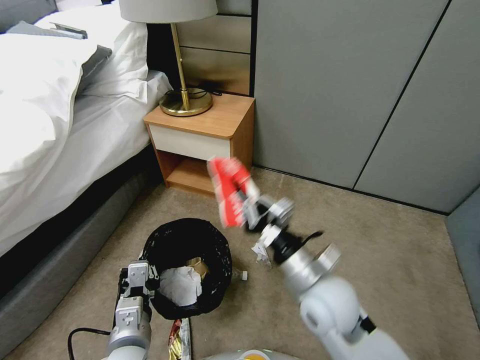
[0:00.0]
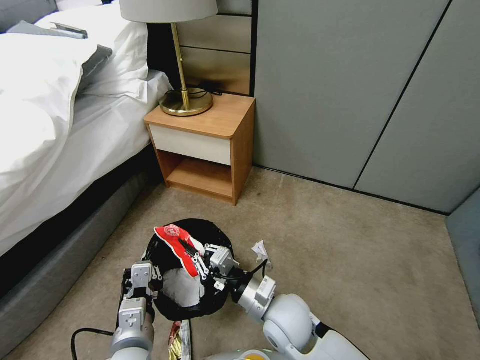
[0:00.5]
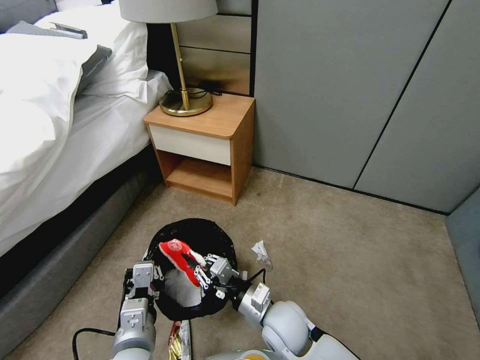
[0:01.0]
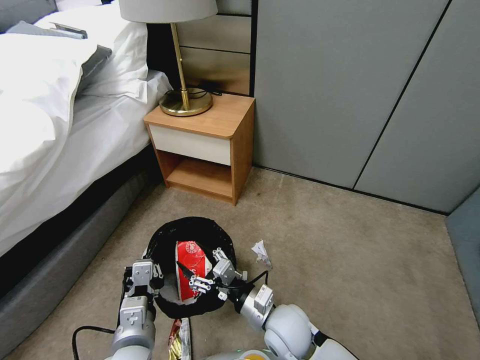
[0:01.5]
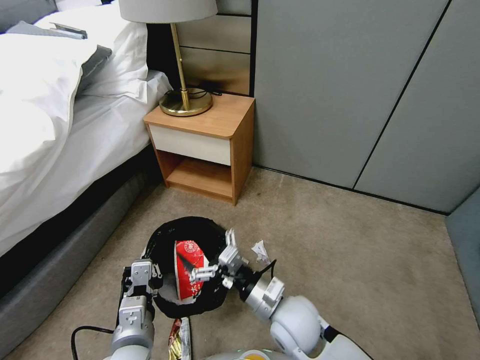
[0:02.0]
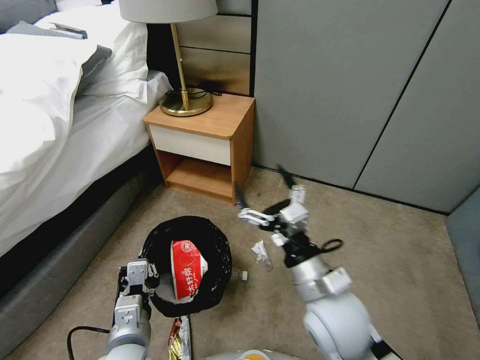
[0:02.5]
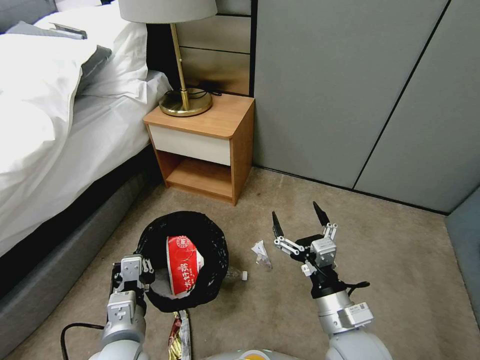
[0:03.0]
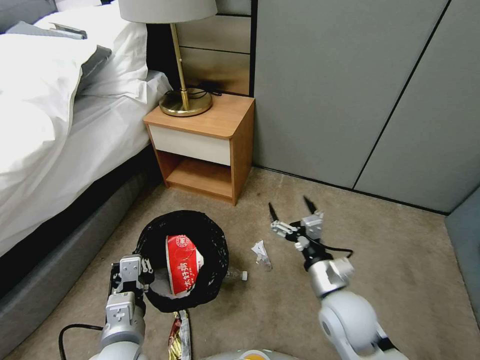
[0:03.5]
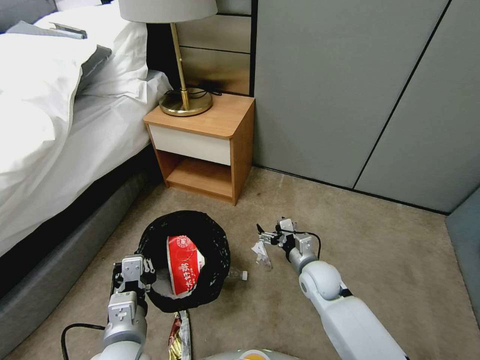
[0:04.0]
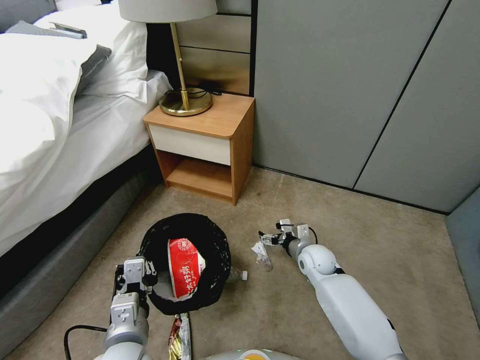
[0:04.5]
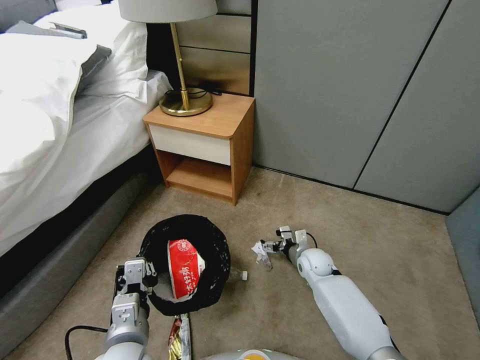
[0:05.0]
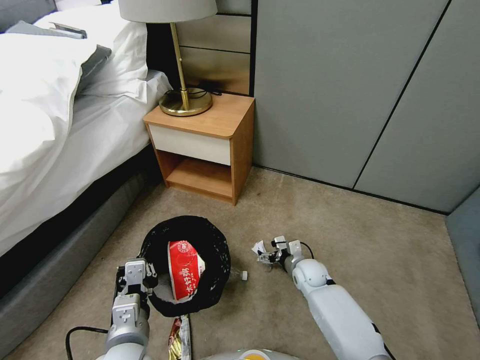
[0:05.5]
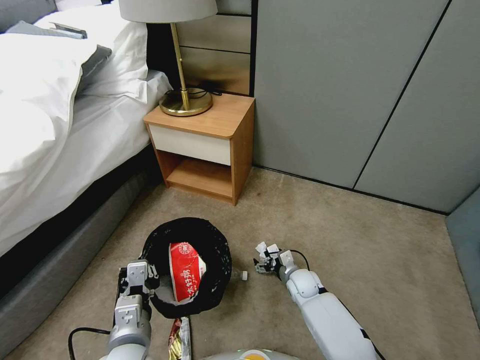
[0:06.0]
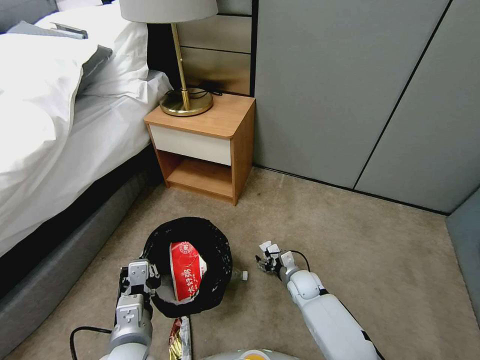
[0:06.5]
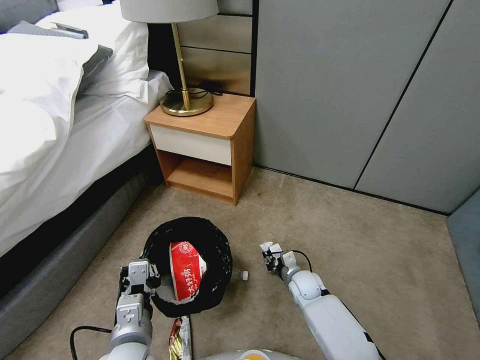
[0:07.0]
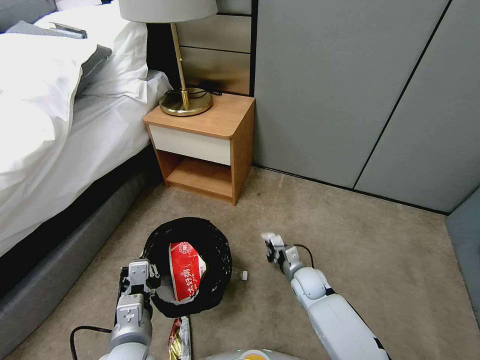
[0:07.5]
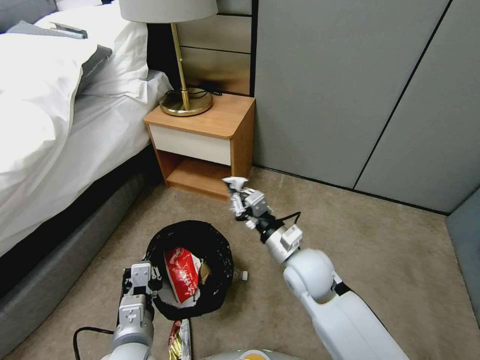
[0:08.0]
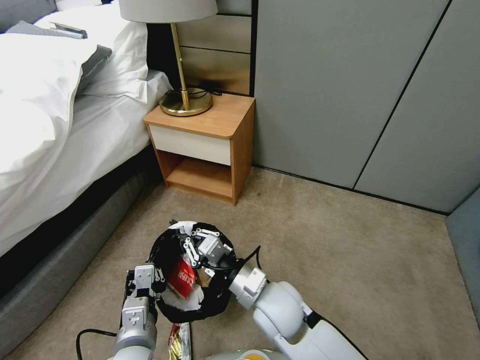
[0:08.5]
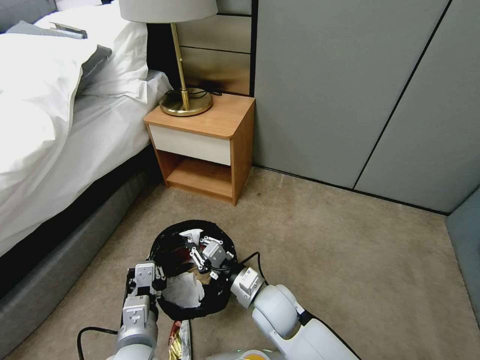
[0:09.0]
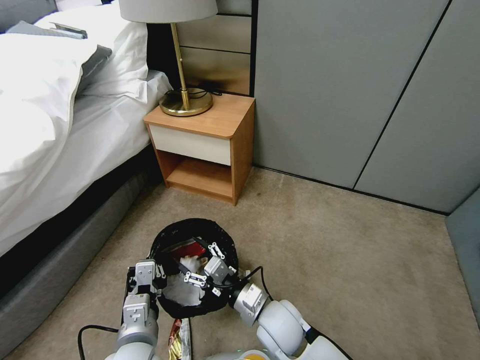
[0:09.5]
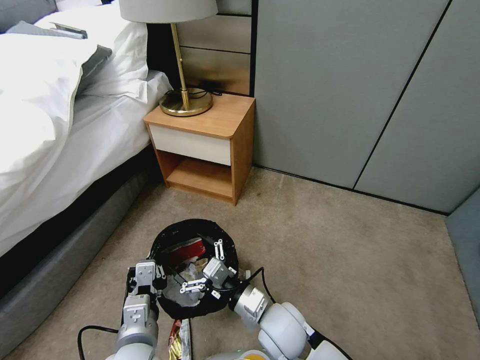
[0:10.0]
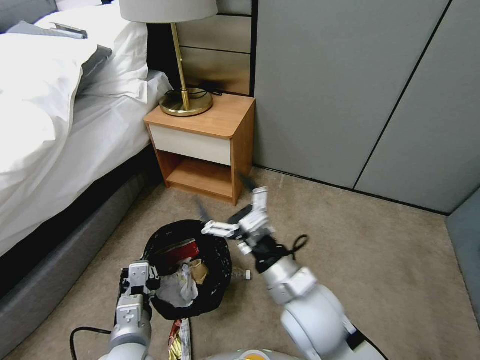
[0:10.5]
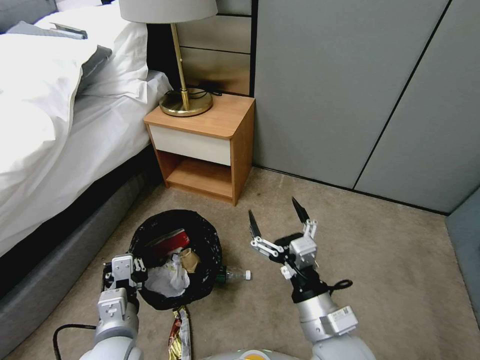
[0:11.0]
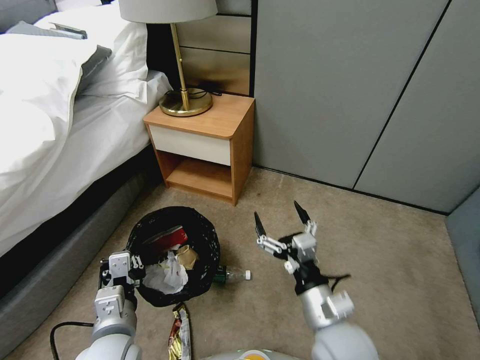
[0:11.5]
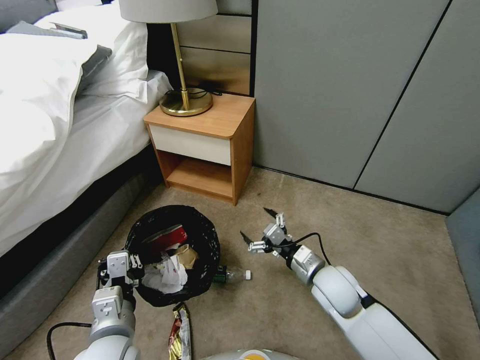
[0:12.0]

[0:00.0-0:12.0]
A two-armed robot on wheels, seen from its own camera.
Task of the whole recording: Pick up the trash bin, then pick up the garbage from the floor and place it into the trash bin.
0:00.0 to 0:02.0: The right gripper travels downward by some 10 cm, and opens up.
0:02.0 to 0:04.0: The right gripper heads forward, to the right and downward, covering about 15 cm.
0:04.0 to 0:06.0: The right gripper goes some 10 cm downward.
0:06.0 to 0:08.0: The right gripper is displaced upward by approximately 25 cm, and closes.
0:08.0 to 0:10.0: The right gripper shifts some 15 cm backward, downward and to the left, and opens.
0:10.0 to 0:12.0: The right gripper is displaced to the right and forward by about 15 cm.

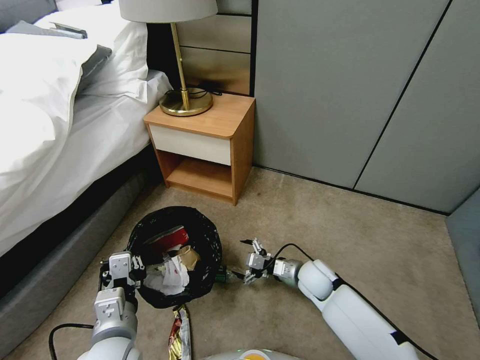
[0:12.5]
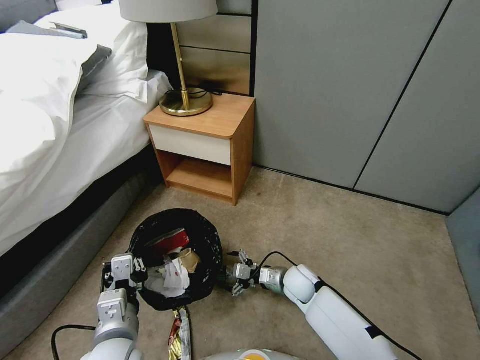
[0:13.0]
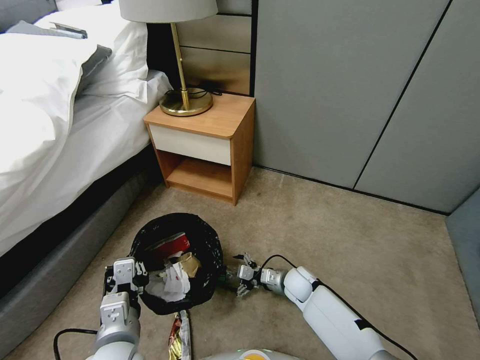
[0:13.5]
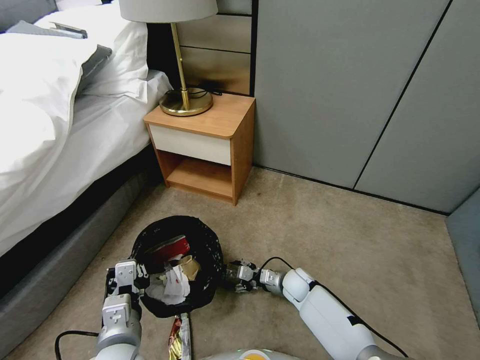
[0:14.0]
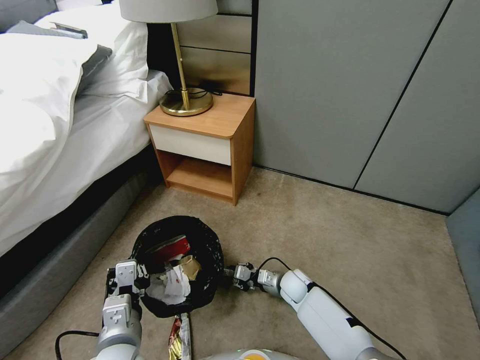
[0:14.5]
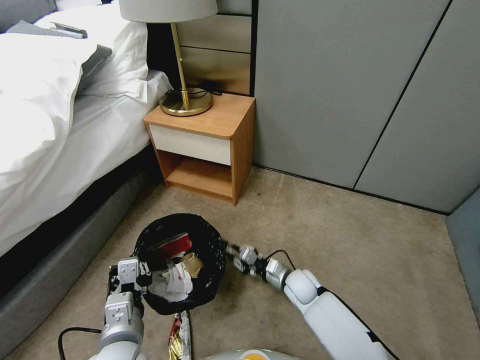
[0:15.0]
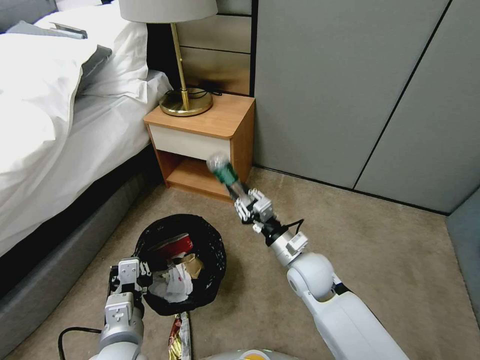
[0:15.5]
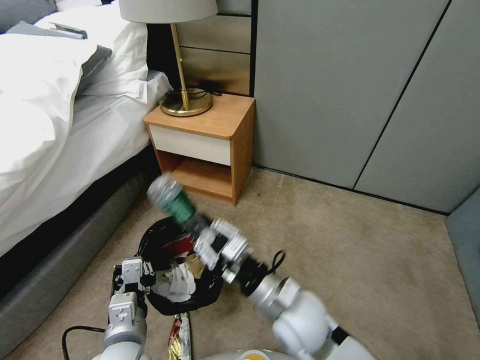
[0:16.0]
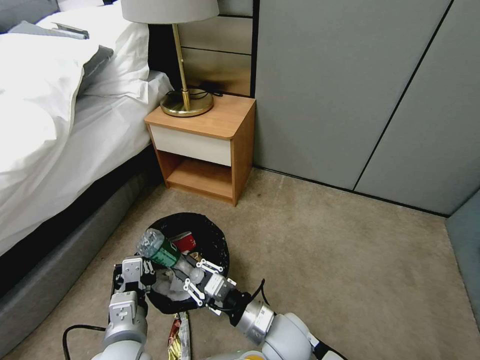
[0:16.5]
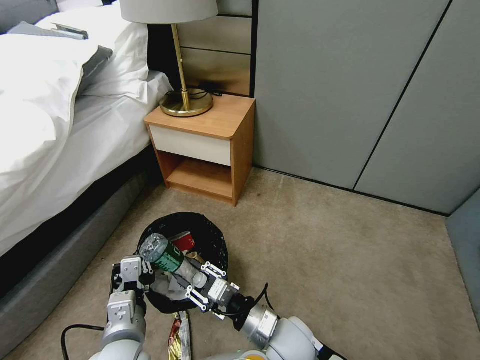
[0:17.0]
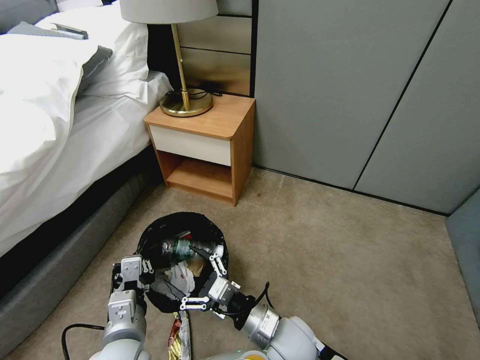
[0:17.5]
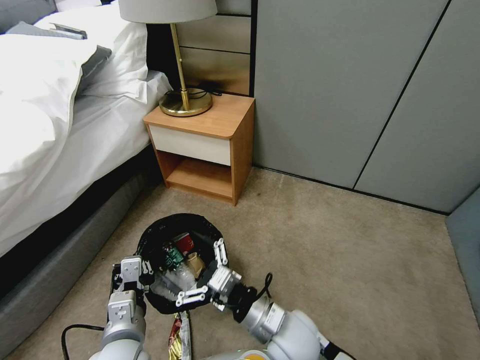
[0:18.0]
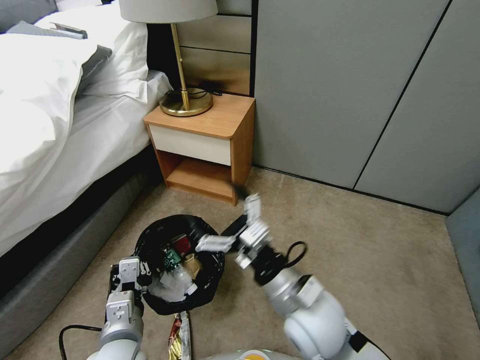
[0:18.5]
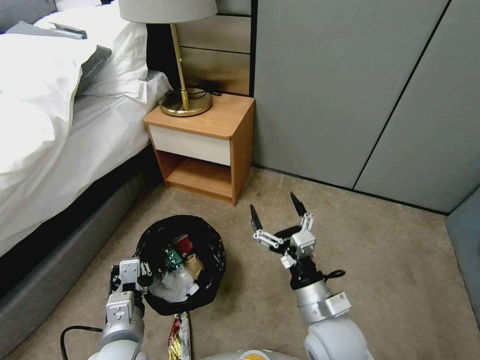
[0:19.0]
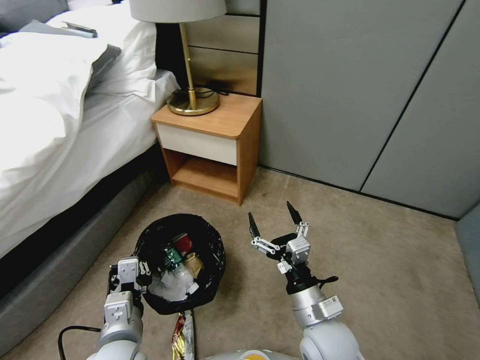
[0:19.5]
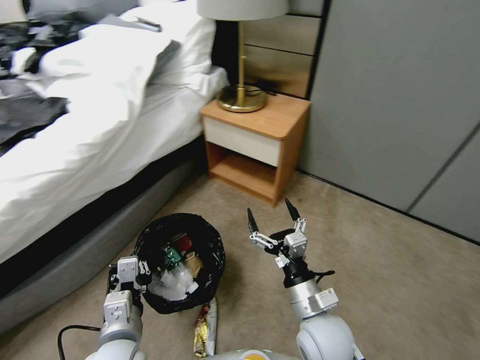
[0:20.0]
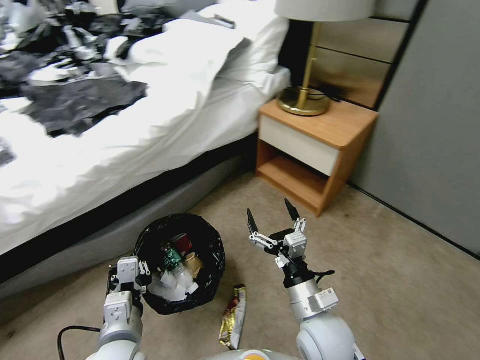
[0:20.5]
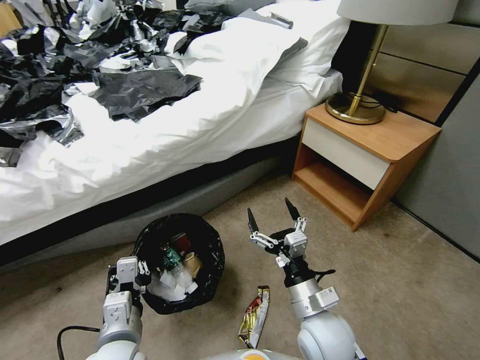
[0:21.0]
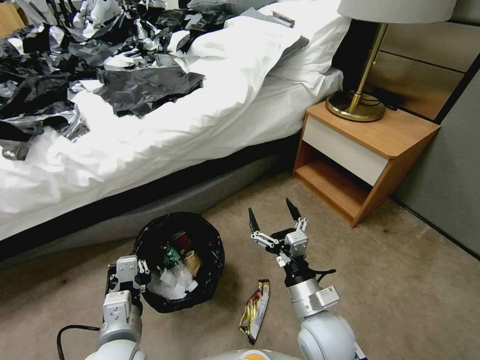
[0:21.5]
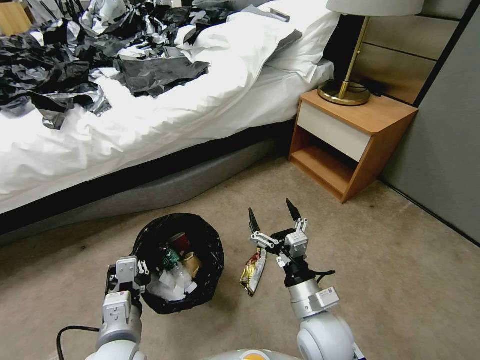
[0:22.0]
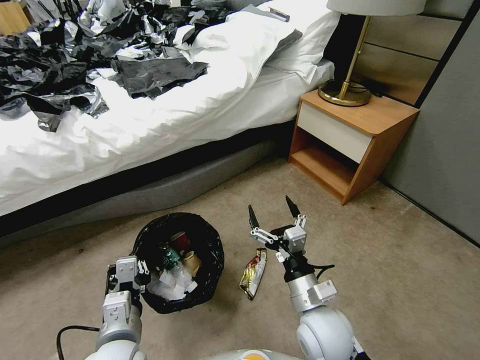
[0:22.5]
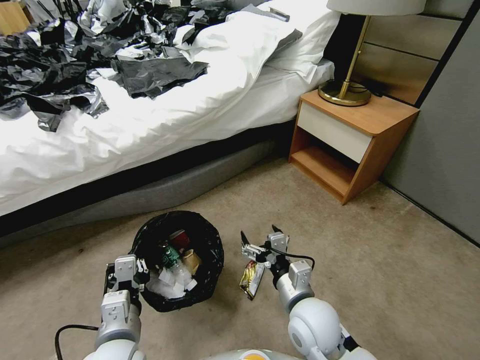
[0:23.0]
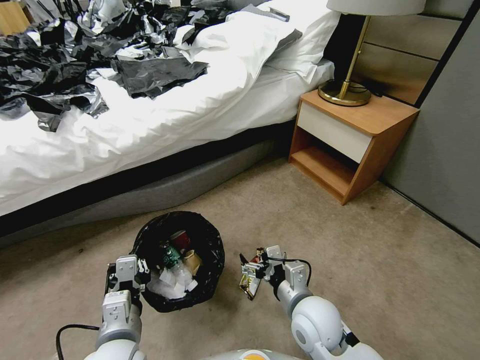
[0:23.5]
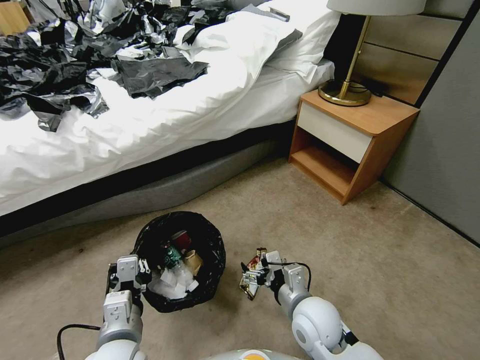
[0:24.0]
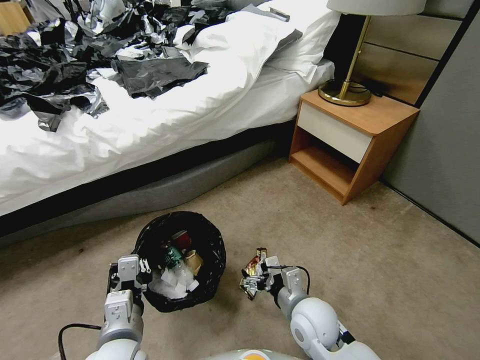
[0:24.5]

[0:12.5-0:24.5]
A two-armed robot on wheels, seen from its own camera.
Task of the whole recording: Pick up the trash bin, then pick up the garbage from the floor and place it into the trash bin.
0:12.5 to 0:14.5: The right gripper is displaced downward by some 10 cm, and closes its fingers.
0:14.5 to 0:16.5: The right gripper travels upward, backward and to the left by approximately 25 cm.
0:16.5 to 0:18.5: The right gripper shifts about 15 cm upward, and opens.
0:18.5 to 0:20.5: The right gripper shifts approximately 10 cm downward.
0:22.5 to 0:24.5: The right gripper travels downward by approximately 5 cm.

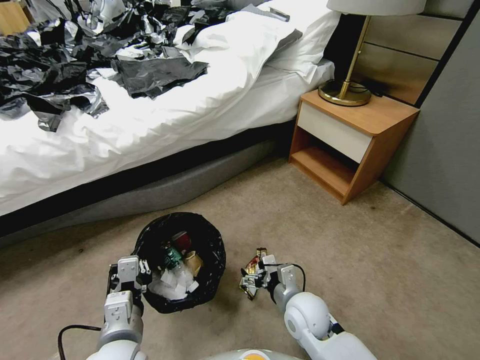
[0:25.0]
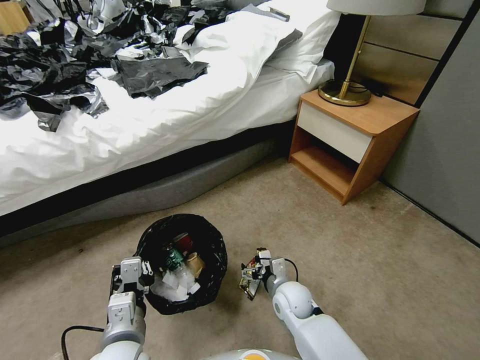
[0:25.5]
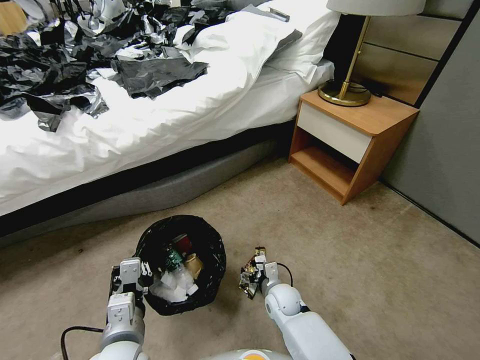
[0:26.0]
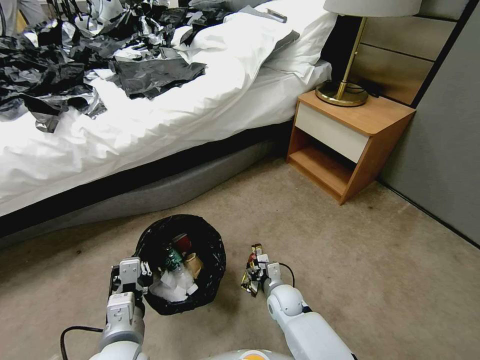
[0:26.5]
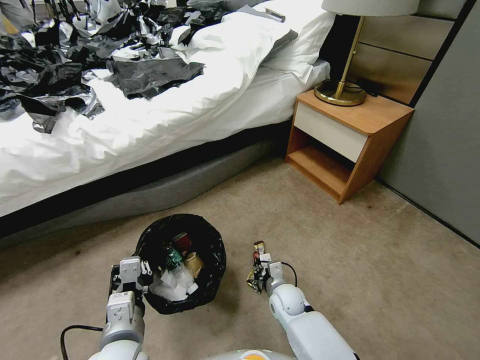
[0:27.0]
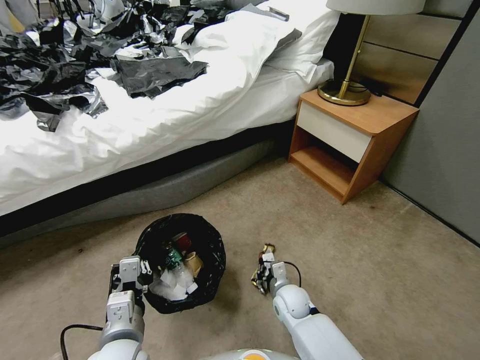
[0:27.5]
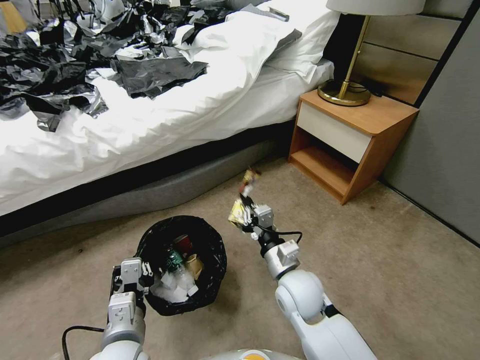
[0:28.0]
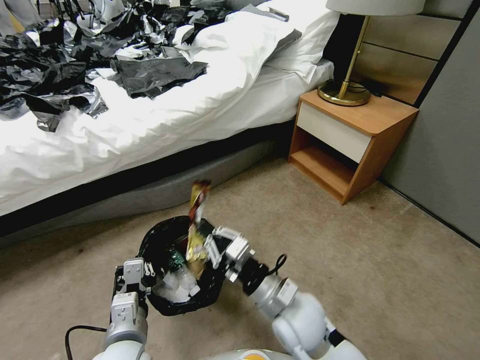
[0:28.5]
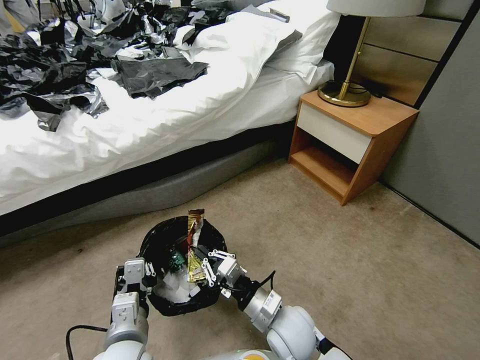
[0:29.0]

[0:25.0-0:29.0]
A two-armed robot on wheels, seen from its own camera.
Task of the whole recording: Pick up the trash bin, then pick up the garbage from the floor and place it into the trash bin.
0:25.0 to 0:27.0: The right gripper moves downward and forward, about 15 cm, and closes its fingers.
0:27.0 to 0:29.0: The right gripper goes about 20 cm upward and backward.
